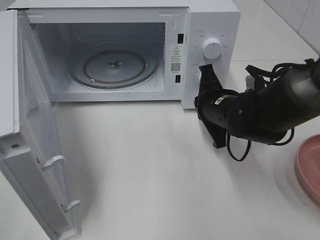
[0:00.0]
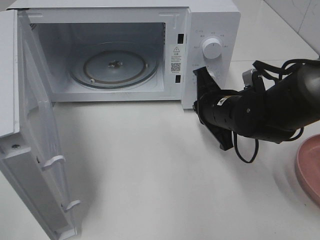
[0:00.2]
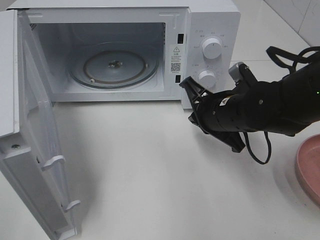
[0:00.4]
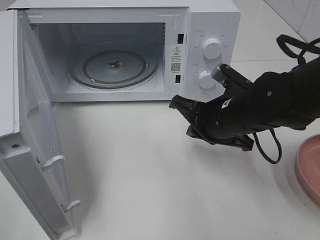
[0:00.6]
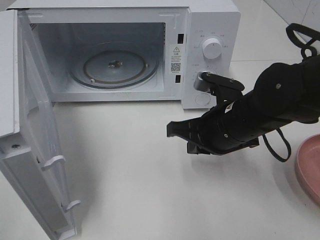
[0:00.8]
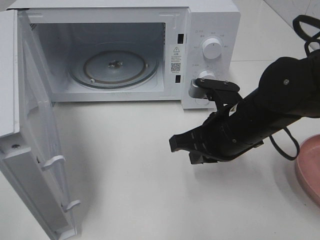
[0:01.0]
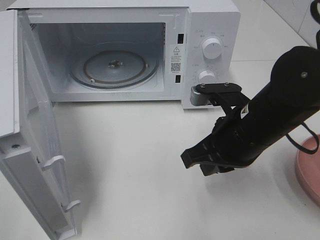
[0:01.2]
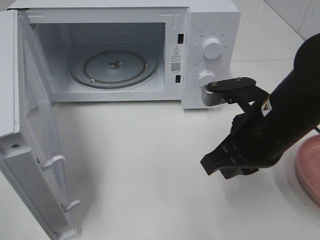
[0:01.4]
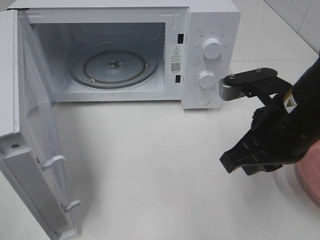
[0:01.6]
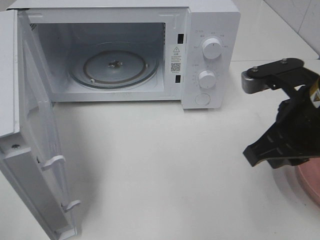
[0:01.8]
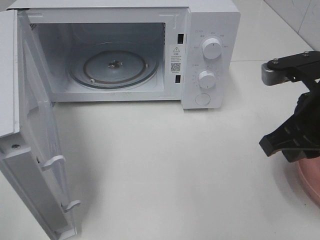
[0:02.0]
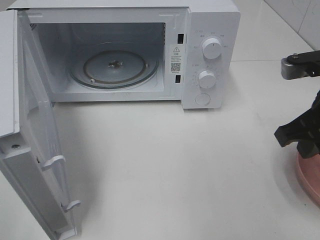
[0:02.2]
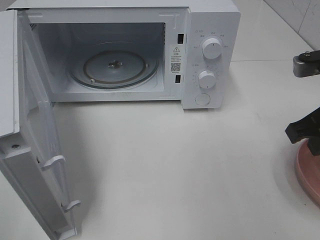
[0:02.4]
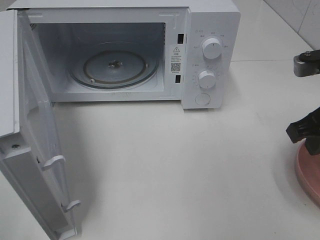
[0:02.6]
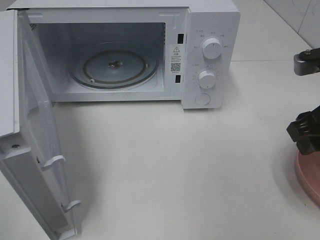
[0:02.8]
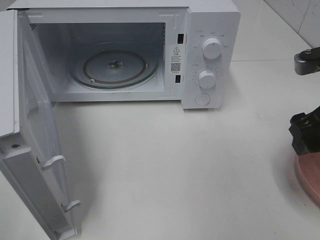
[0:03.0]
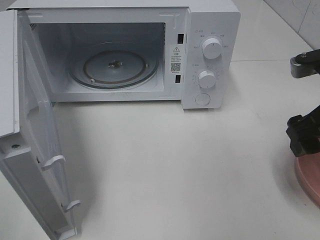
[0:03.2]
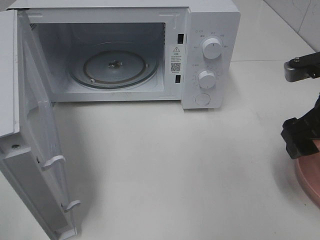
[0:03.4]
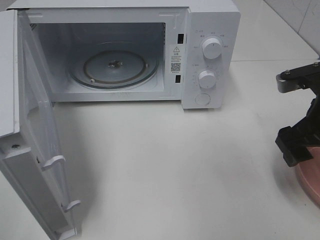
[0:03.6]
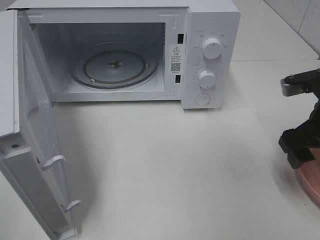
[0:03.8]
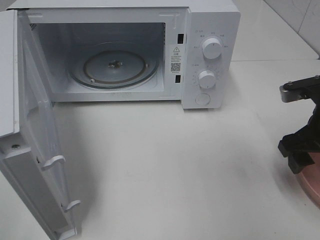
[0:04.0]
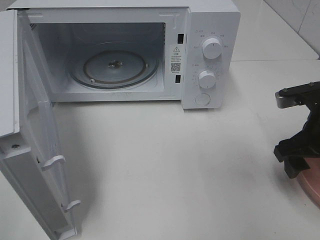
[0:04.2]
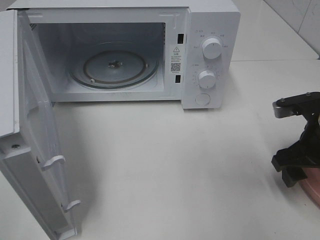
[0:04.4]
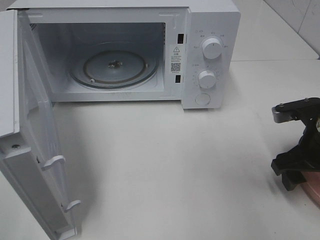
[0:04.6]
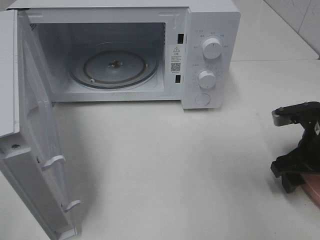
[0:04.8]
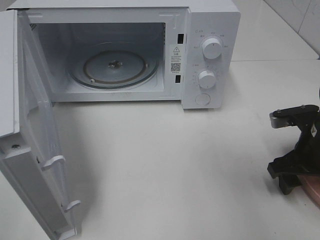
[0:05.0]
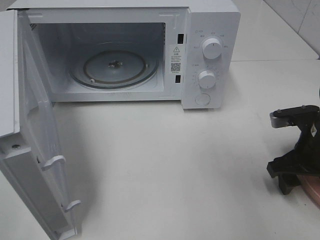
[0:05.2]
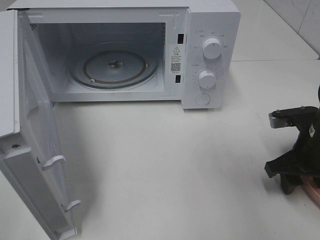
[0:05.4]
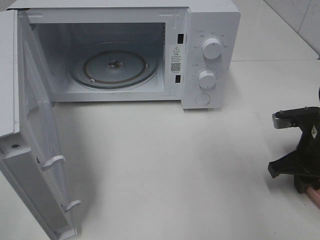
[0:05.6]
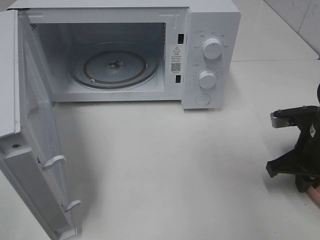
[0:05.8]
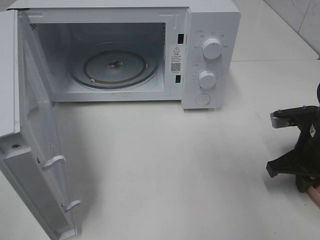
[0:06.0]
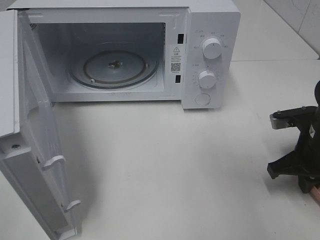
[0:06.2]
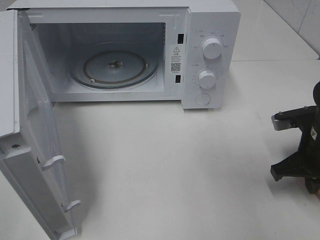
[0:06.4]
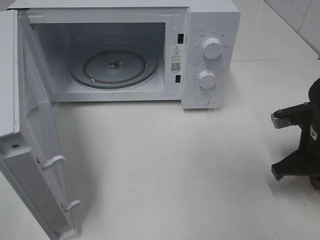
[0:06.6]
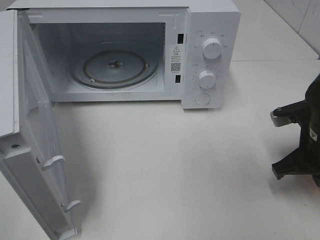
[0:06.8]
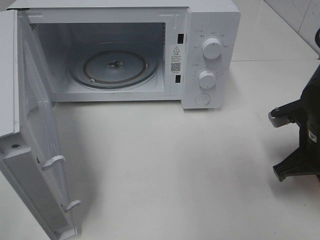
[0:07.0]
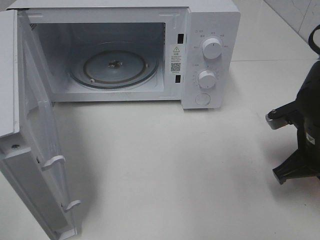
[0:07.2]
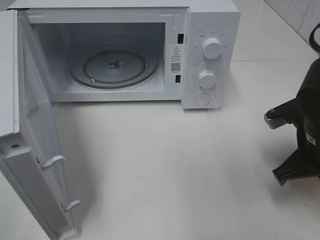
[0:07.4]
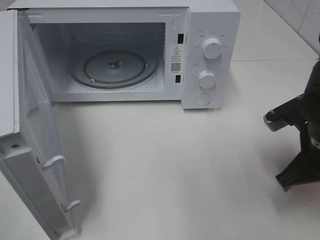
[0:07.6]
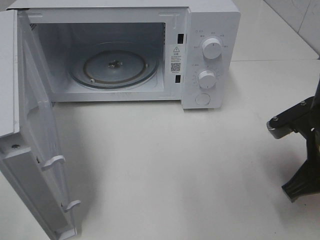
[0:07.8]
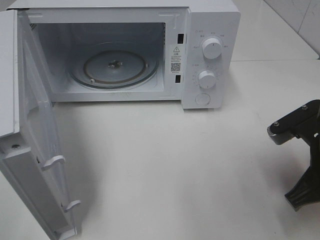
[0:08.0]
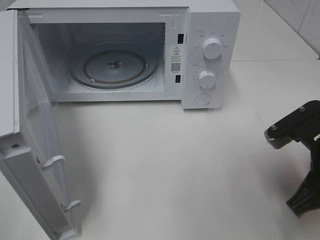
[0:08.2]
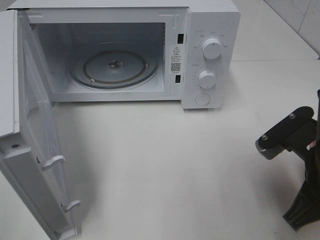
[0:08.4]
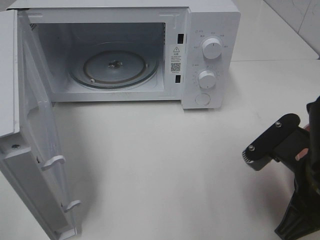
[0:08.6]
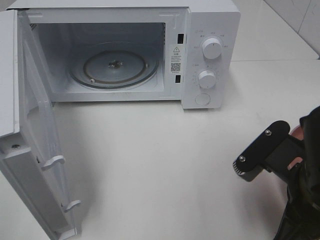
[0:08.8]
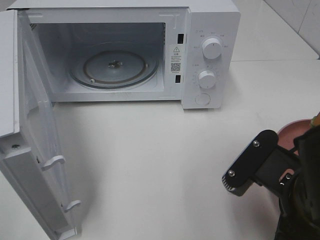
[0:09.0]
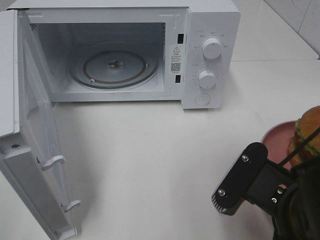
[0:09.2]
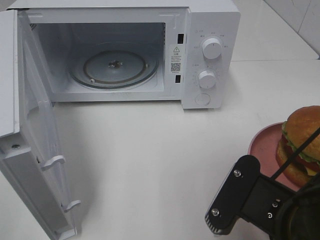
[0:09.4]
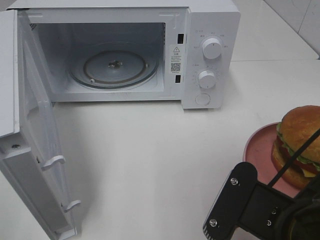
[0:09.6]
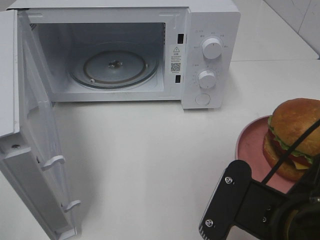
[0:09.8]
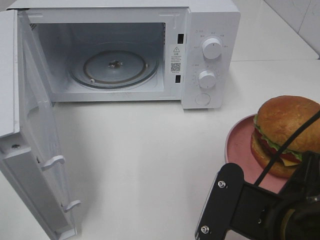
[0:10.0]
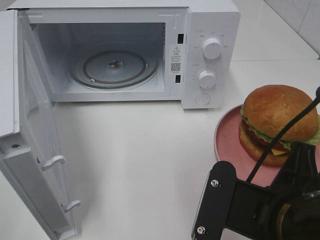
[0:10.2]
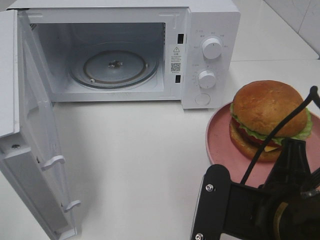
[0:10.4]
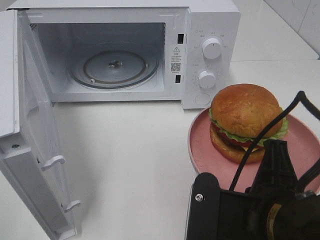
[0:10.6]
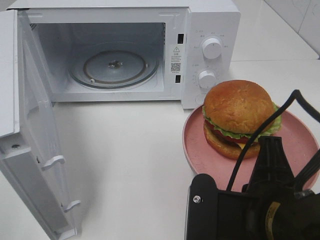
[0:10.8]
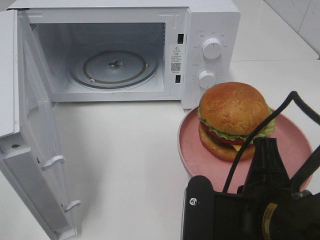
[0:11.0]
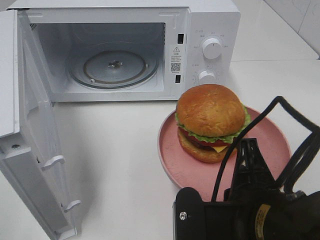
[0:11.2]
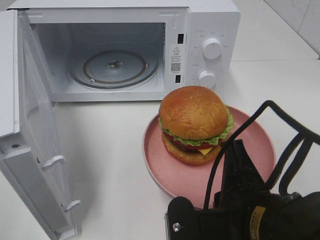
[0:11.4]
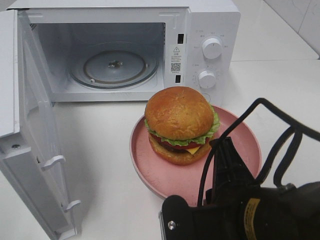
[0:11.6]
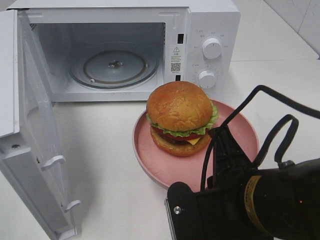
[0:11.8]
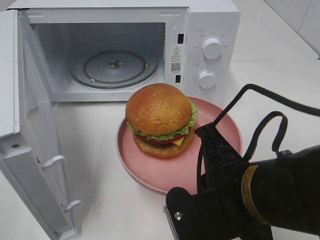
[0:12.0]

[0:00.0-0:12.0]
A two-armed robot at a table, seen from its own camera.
Task of the whole recording: Heat the burger.
Step, 0:00.0 to 0:06.4: Right hand: grab the plate with the hamburger.
0:00.0 to 0:01.6: The right gripper shifts some 15 cm backward and upward.
0:01.6 to 0:03.0: The right gripper travels to the right by roughly 10 cm, and opens its fingers.
0:03.0 to 0:04.4: The right gripper moves downward, roughly 10 cm.
0:04.4 to 0:06.0: The right gripper closes.
0:06.0 to 0:07.6: The right gripper shifts by some 10 cm.
0:07.6 to 0:09.0: The right gripper is displaced backward and to the left by some 10 cm.

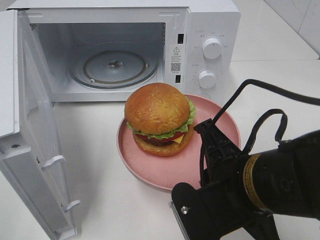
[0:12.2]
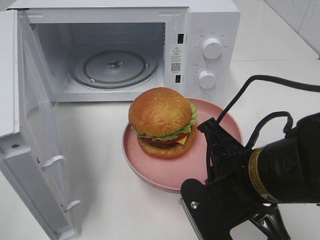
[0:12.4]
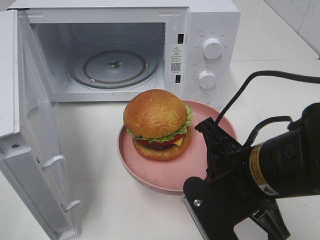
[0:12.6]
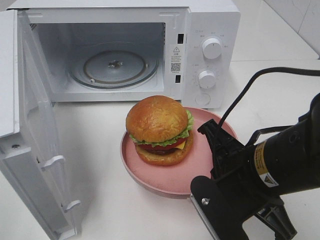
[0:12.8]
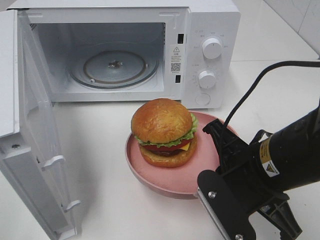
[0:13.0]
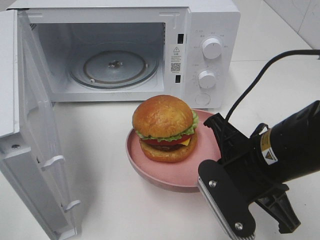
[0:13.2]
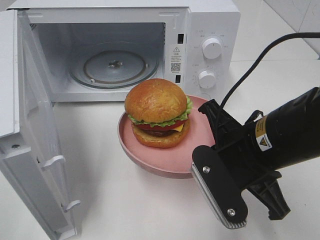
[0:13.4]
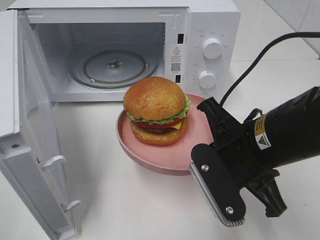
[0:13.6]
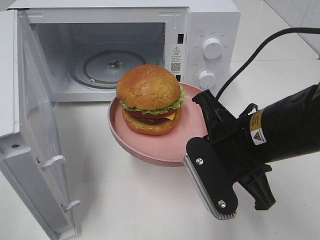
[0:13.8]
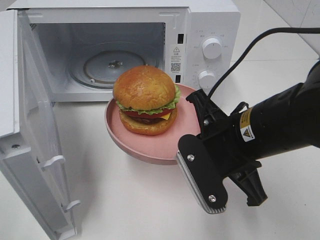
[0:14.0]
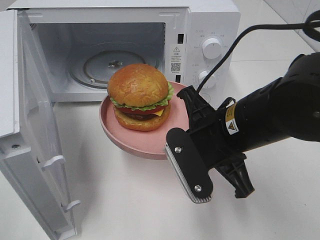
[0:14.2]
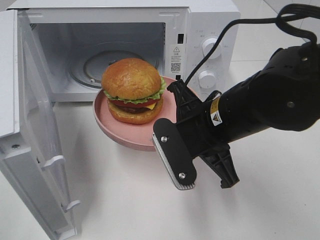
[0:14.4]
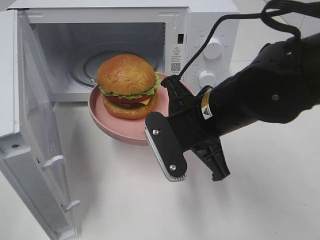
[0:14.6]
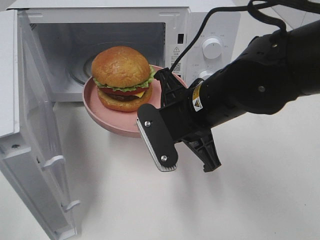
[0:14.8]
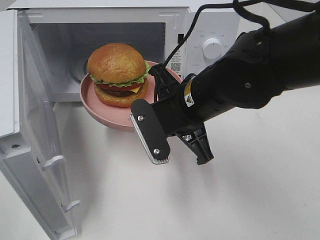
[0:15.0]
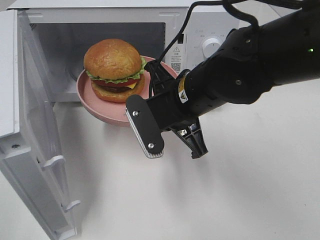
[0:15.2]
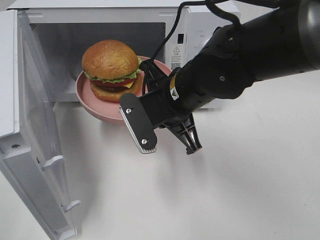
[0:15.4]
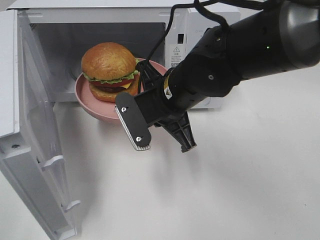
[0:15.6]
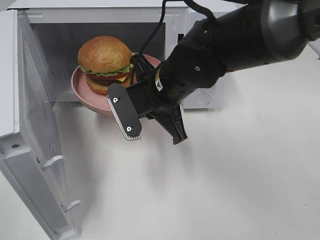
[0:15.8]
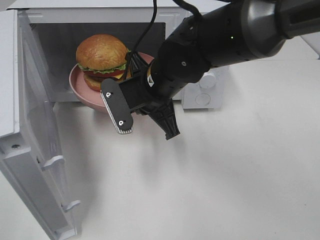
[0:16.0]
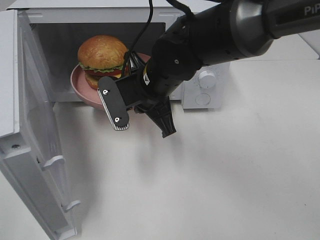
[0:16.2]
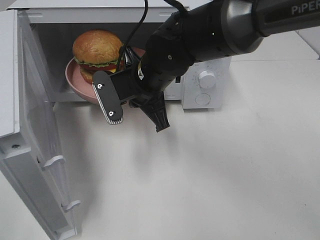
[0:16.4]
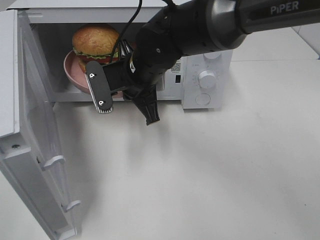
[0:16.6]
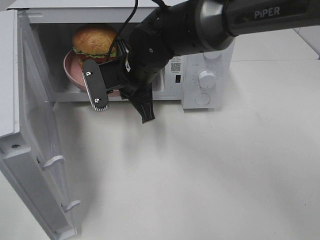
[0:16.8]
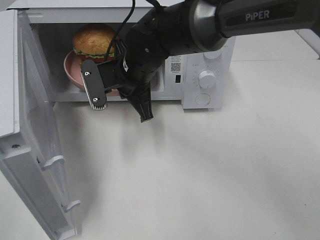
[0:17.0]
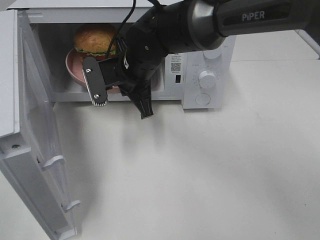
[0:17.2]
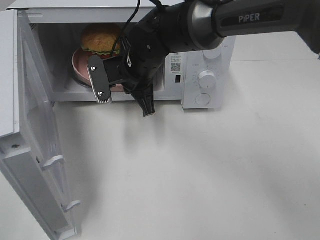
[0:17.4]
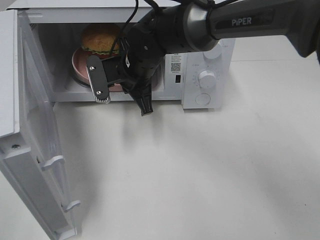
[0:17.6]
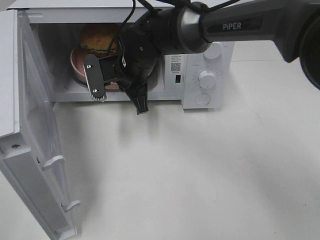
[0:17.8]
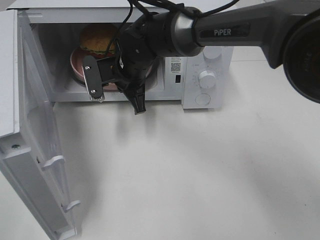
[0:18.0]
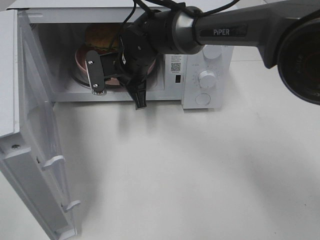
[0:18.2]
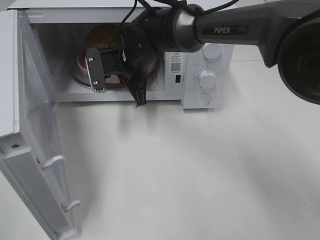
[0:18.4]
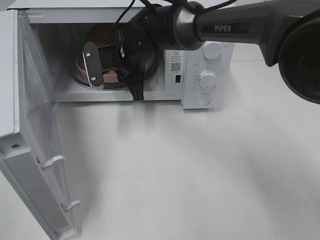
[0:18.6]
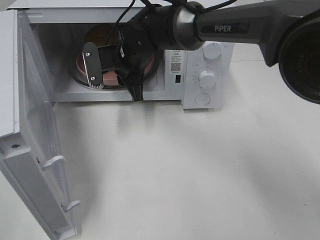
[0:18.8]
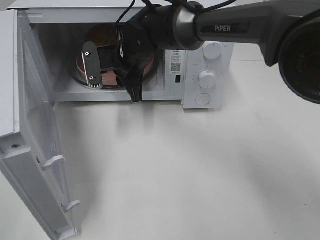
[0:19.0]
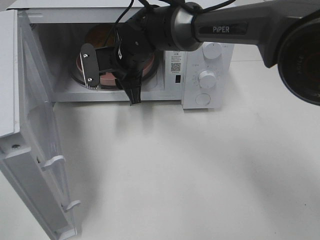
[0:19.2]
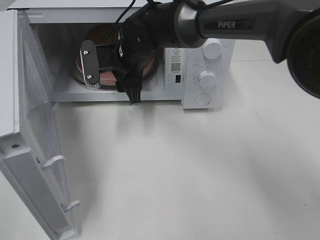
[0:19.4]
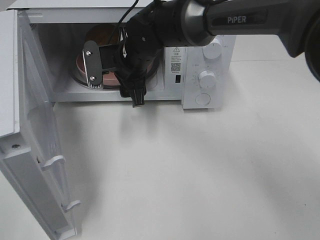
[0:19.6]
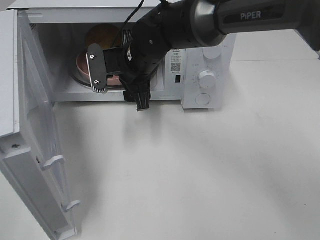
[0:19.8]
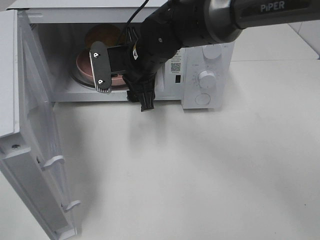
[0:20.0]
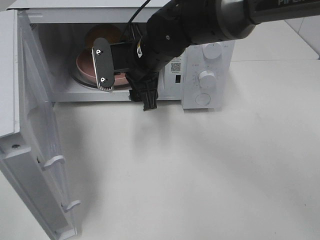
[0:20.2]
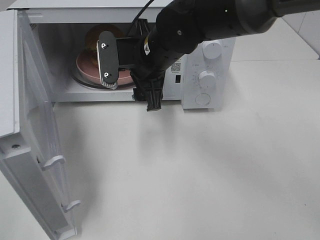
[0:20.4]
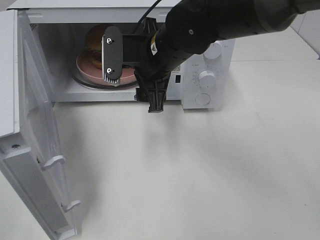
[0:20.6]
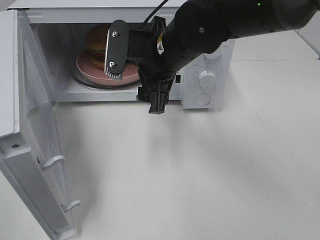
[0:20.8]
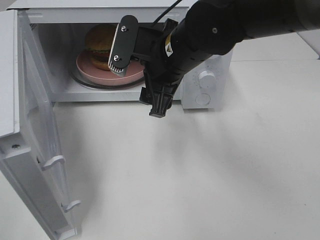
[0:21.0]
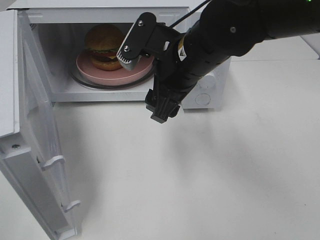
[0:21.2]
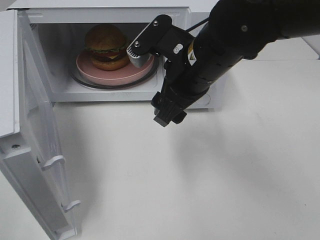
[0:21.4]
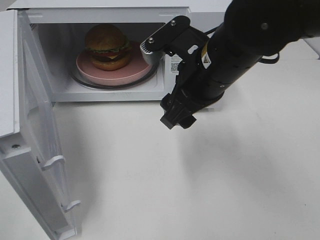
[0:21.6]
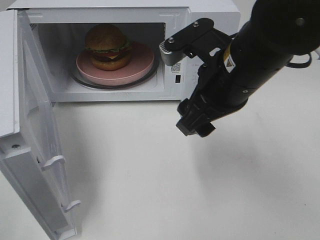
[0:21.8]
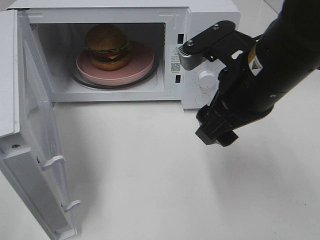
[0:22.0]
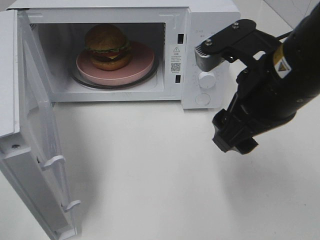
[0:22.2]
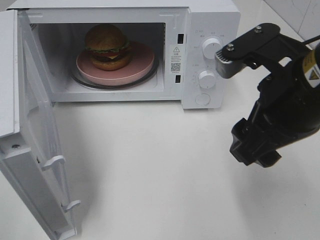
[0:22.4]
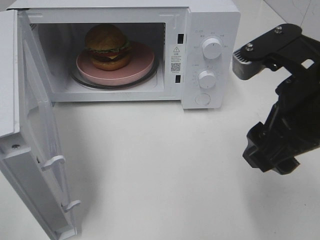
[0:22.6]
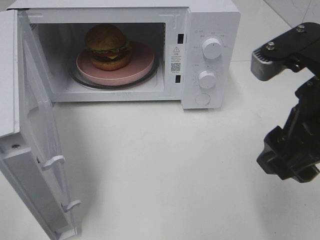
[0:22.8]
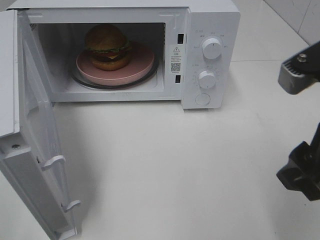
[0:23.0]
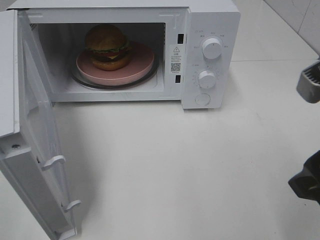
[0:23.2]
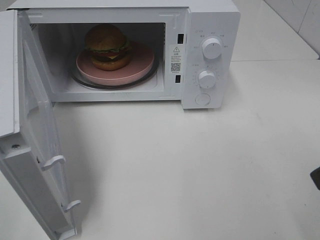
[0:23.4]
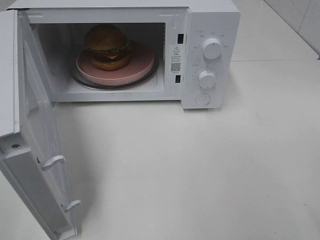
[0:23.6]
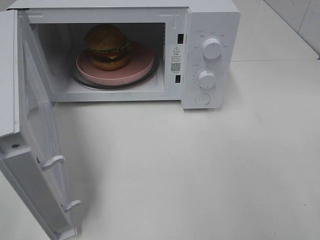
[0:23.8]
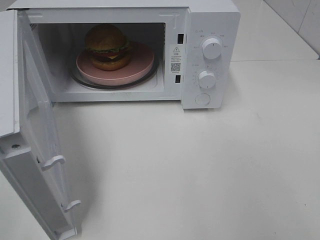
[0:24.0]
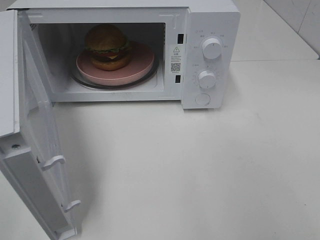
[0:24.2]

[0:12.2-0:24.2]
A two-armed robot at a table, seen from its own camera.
Task of the whole recording: Heat the burger.
Step, 0:12.2 to 0:19.2: Right hand: place the plate in the microwave.
0:12.2 to 0:13.8: The right gripper travels forward by some 5 cm.
0:13.8 to 0:15.2: The right gripper shifts roughly 10 cm forward and to the left.
0:15.2 to 0:16.6: The right gripper is displaced forward and to the left by approximately 10 cm.
0:16.6 to 0:18.2: The right gripper heads forward, covering about 5 cm.
0:18.2 to 0:19.8: The right gripper opens its fingers.
0:19.8 to 0:21.2: The right gripper travels backward, to the right and upward by approximately 15 cm.
0:21.2 to 0:22.6: The right gripper shifts approximately 15 cm backward and to the right.
0:22.6 to 0:24.2: The right gripper travels to the right and backward by roughly 20 cm.
